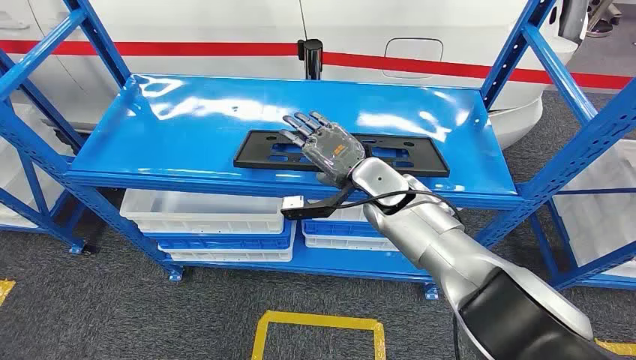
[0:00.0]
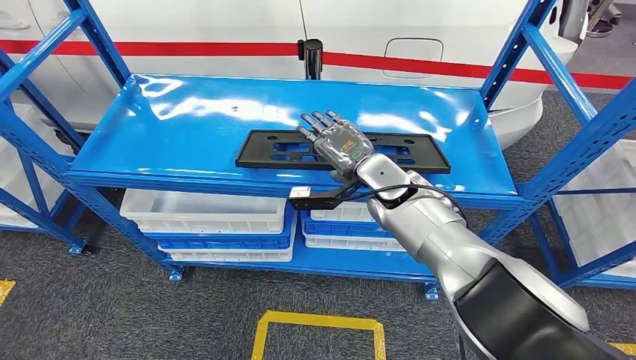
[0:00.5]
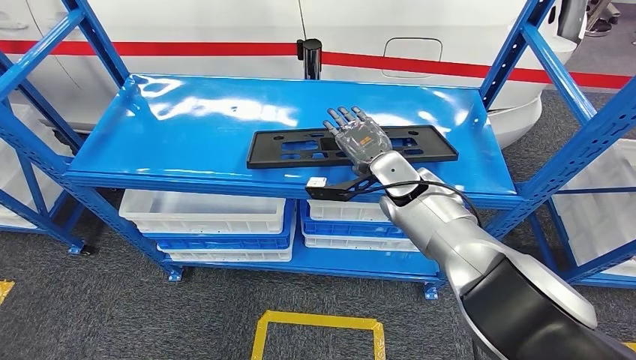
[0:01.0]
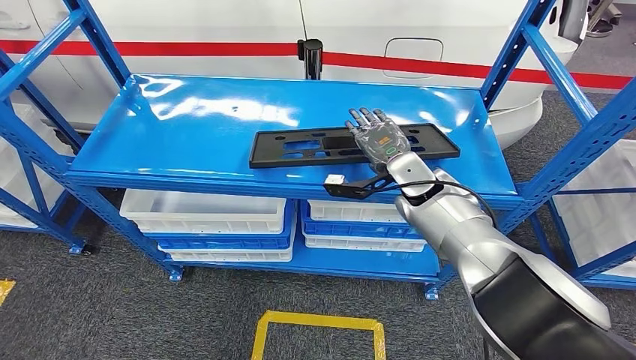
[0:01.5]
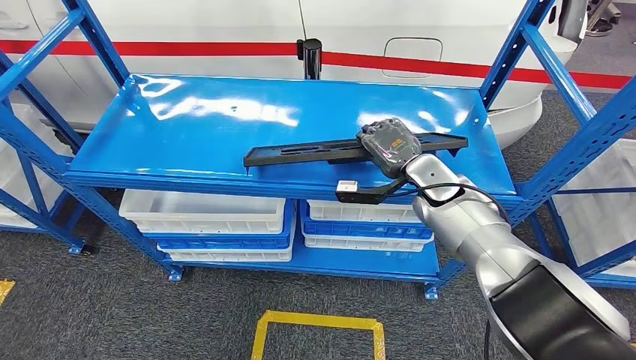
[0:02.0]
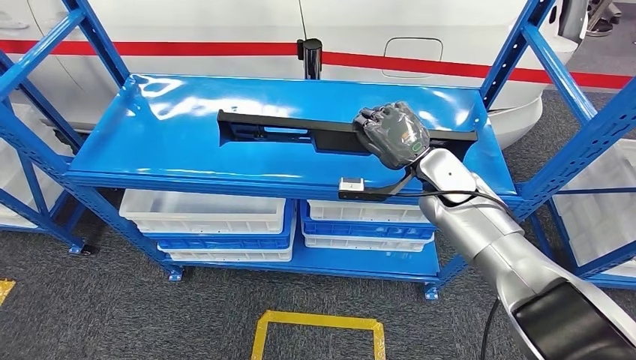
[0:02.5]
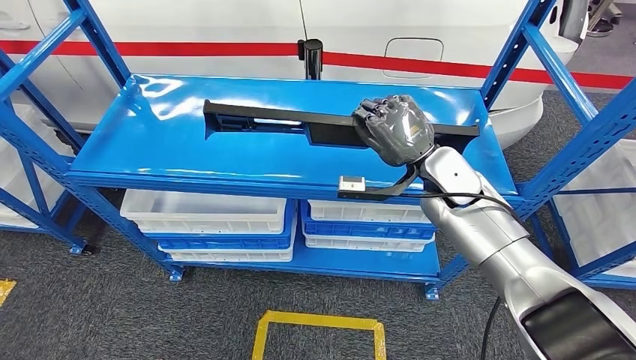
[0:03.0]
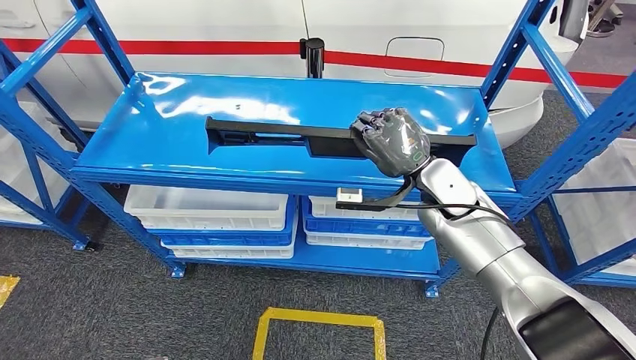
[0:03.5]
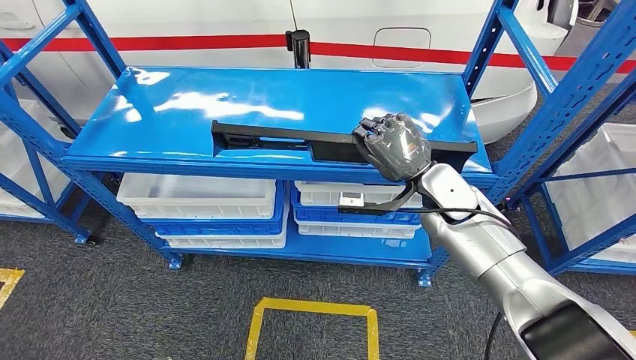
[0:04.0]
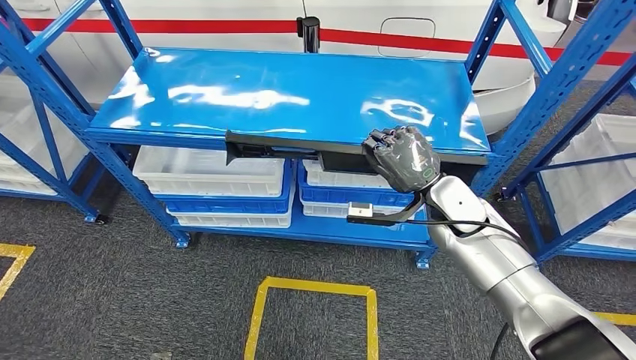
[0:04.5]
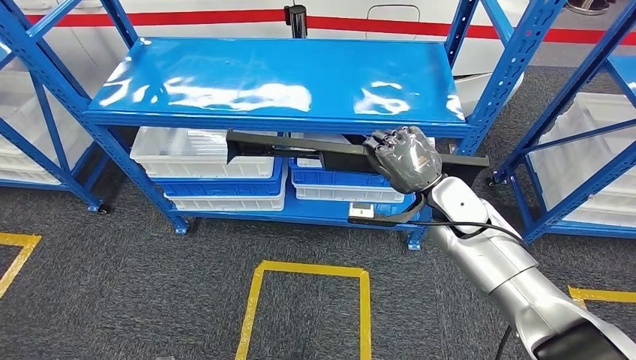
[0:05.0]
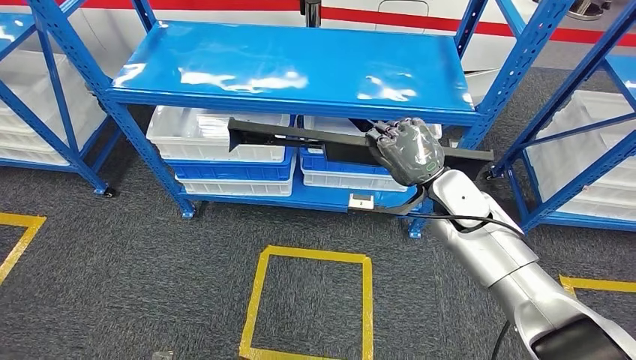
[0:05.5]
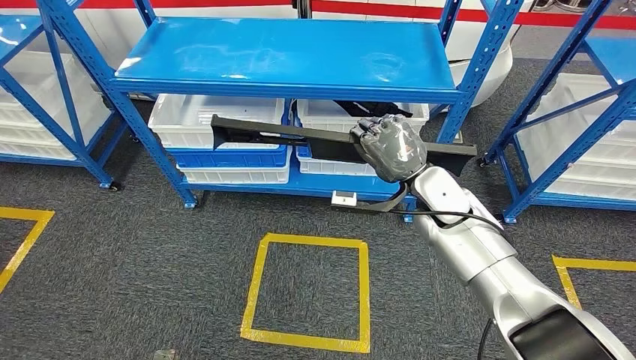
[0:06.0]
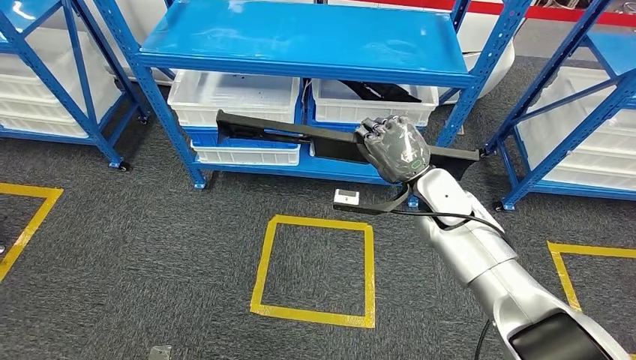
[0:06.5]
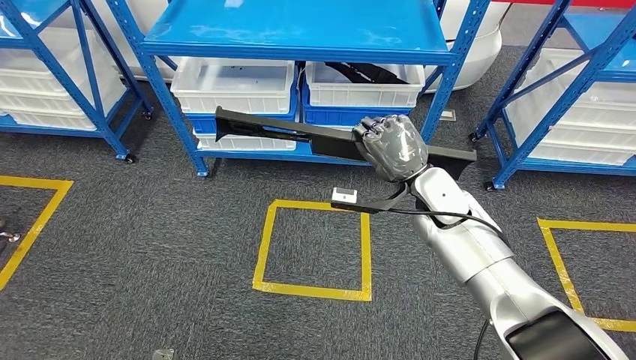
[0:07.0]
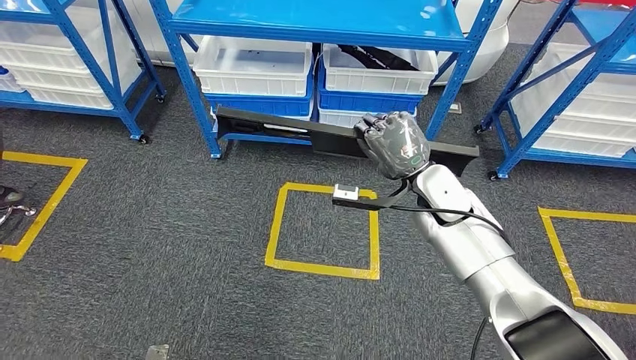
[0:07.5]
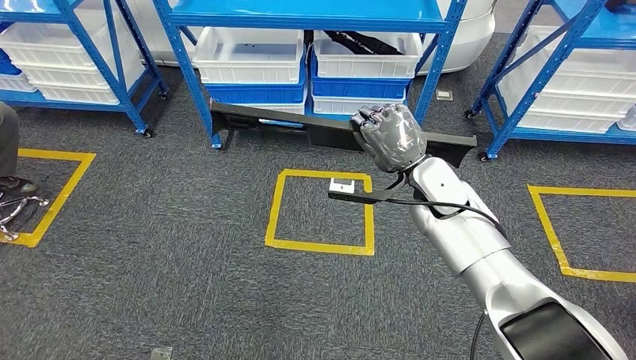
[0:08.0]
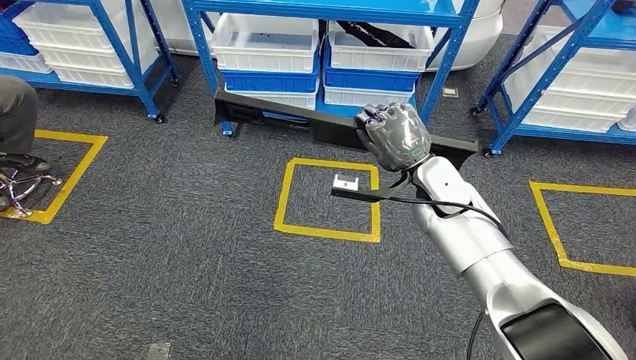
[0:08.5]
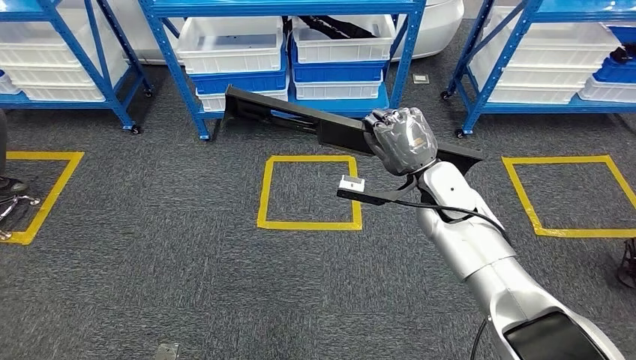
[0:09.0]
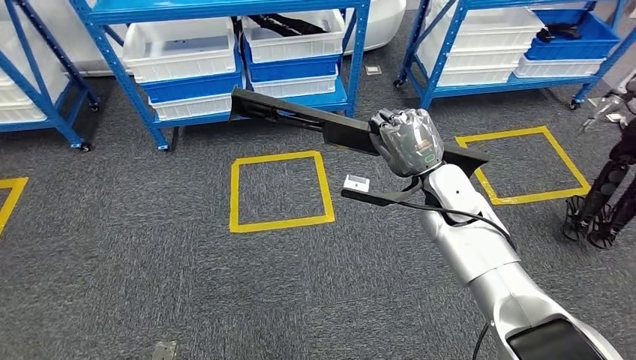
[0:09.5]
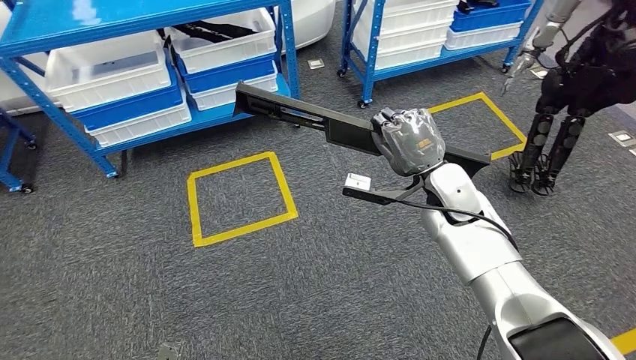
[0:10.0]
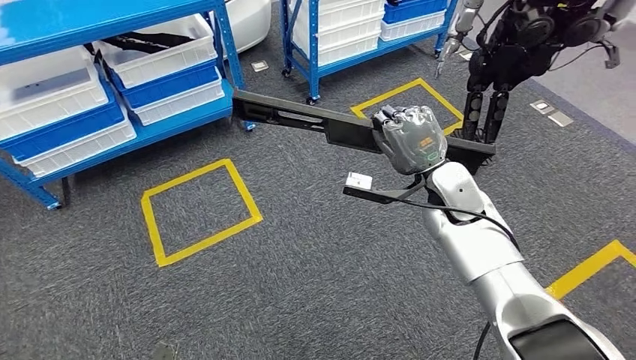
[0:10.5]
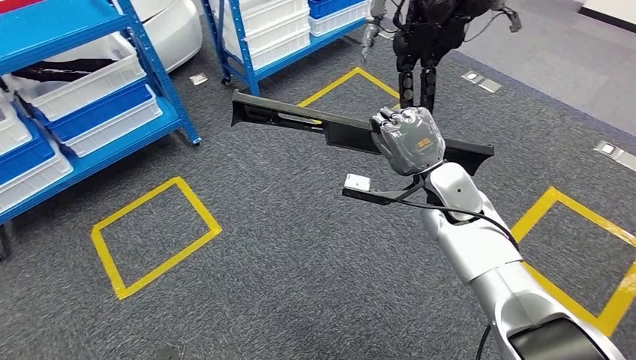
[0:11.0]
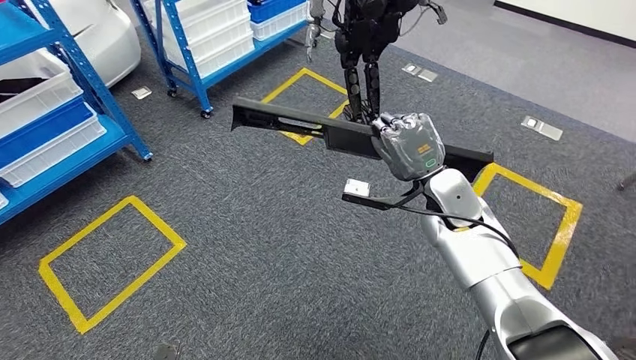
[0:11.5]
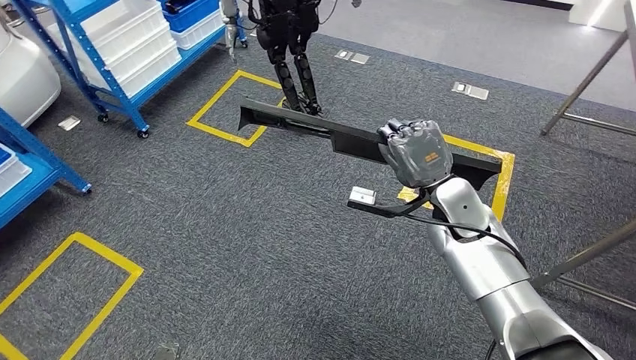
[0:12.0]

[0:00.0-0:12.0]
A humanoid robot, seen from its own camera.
Step, 0:00.0 to 0:03.0: Pick up the large material from the shelf.

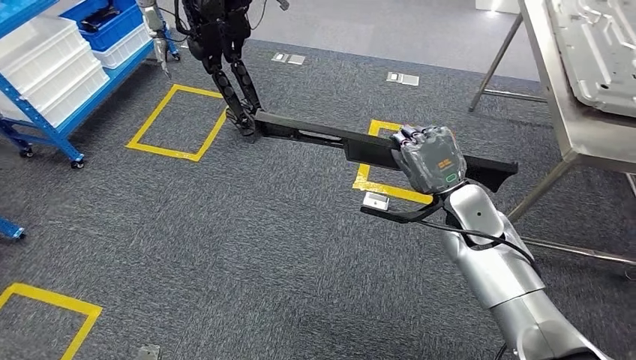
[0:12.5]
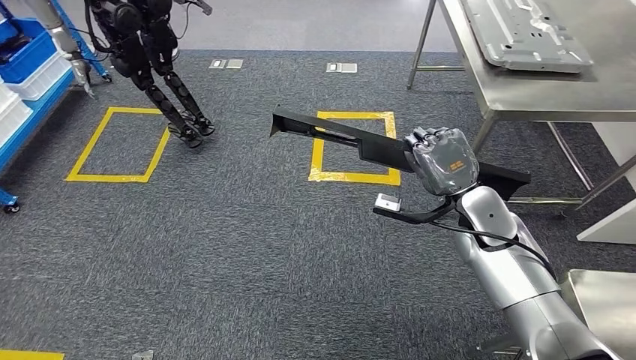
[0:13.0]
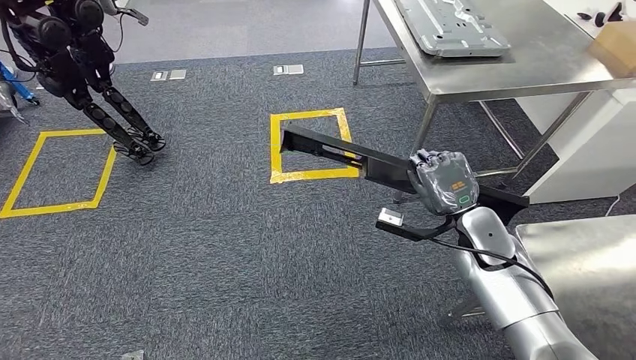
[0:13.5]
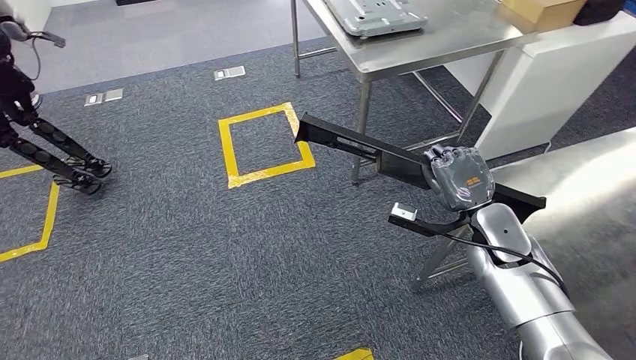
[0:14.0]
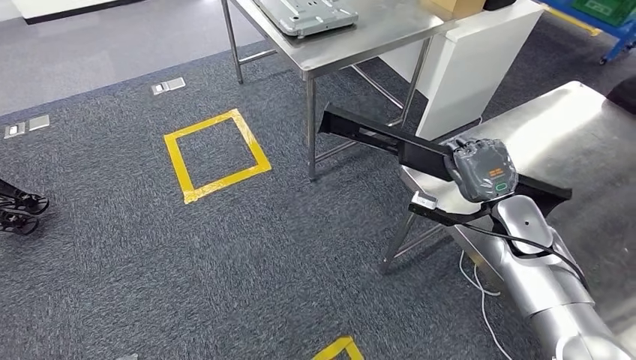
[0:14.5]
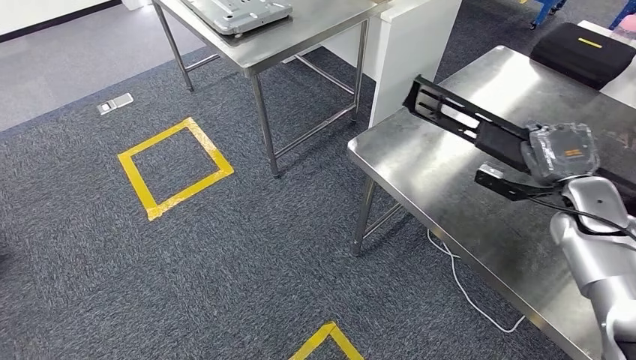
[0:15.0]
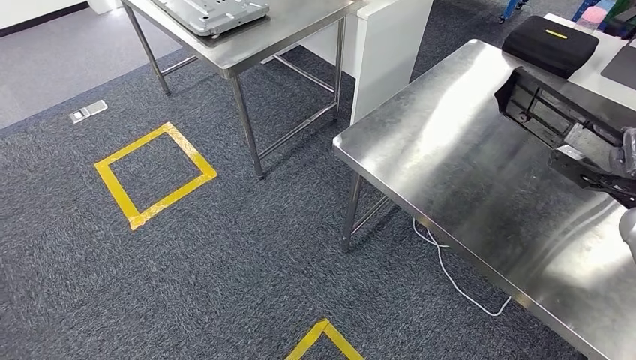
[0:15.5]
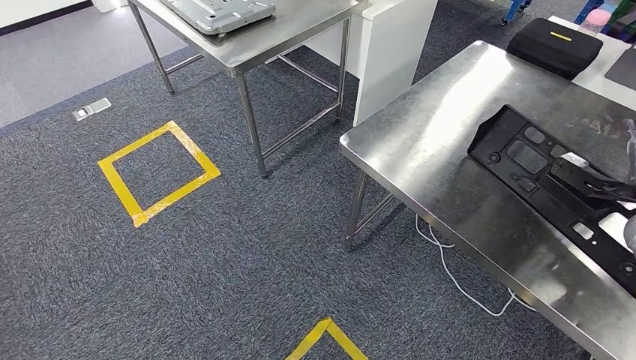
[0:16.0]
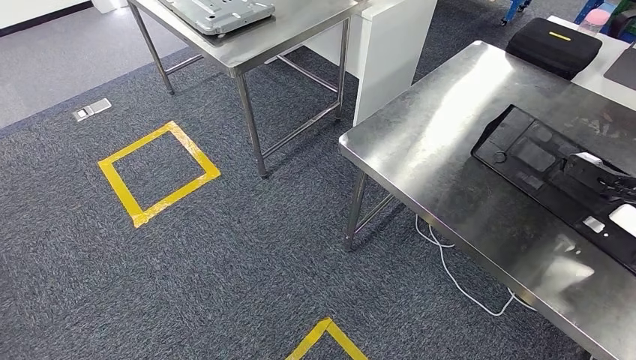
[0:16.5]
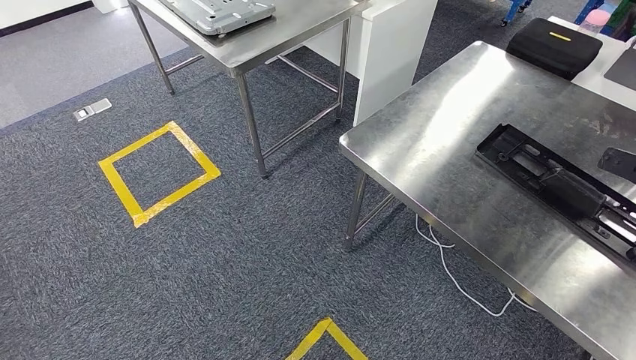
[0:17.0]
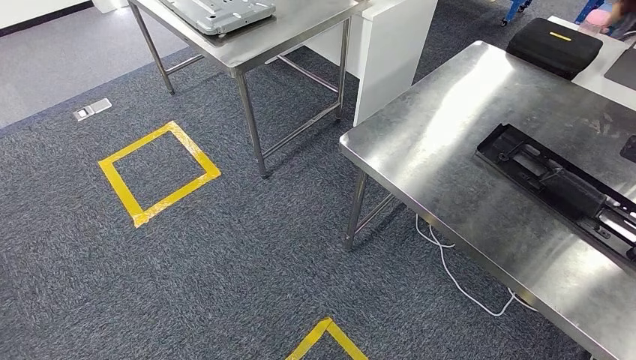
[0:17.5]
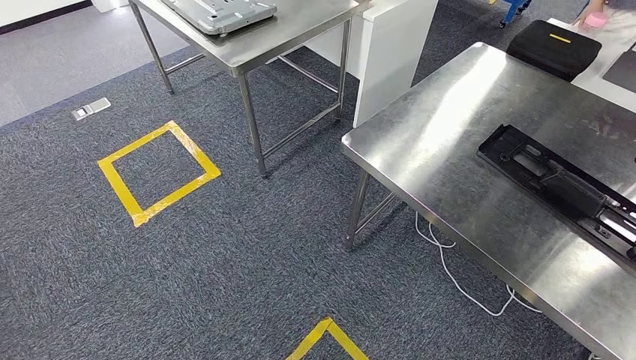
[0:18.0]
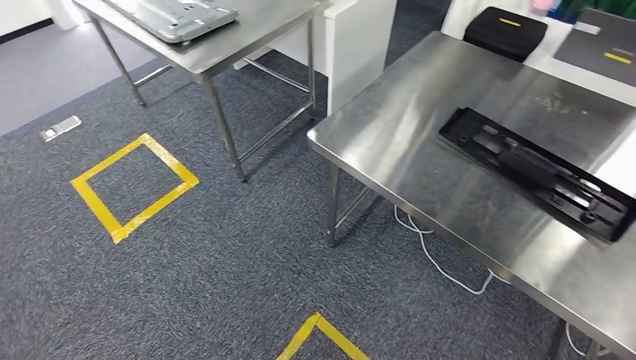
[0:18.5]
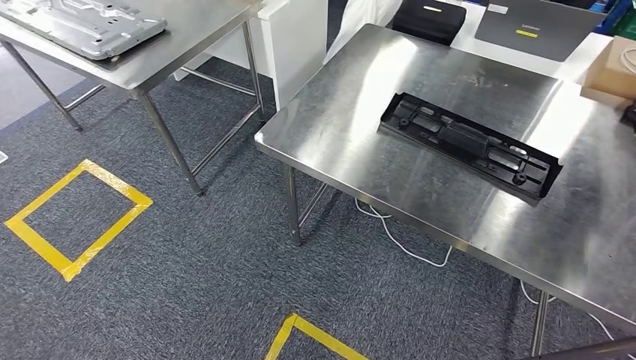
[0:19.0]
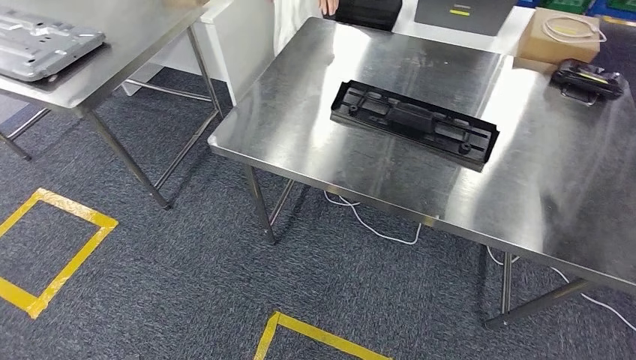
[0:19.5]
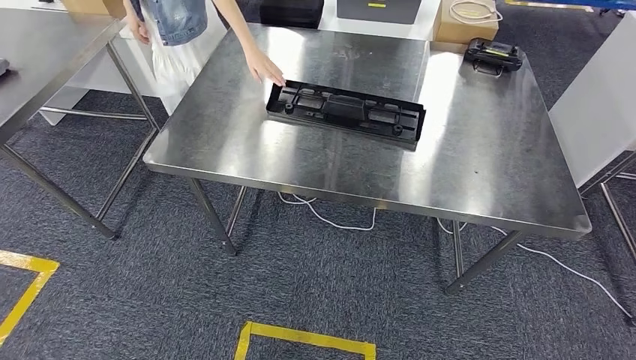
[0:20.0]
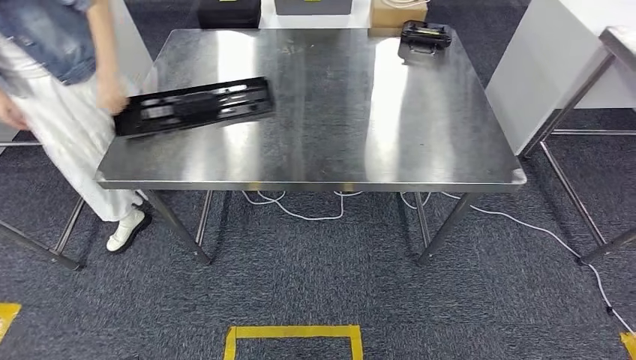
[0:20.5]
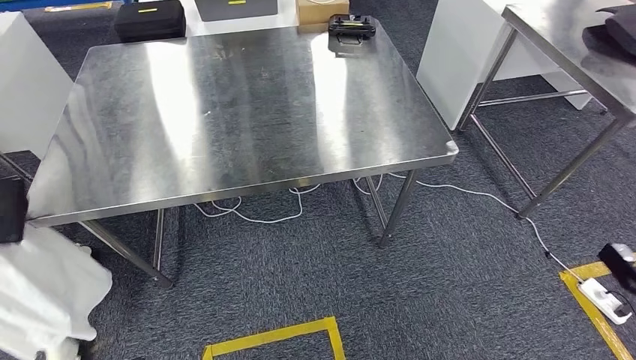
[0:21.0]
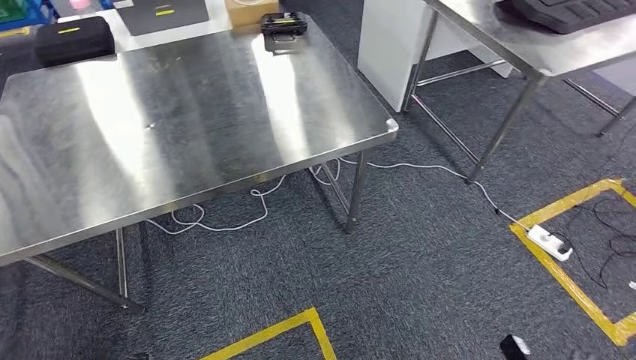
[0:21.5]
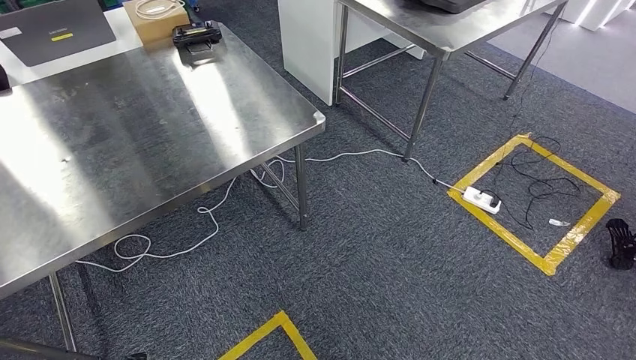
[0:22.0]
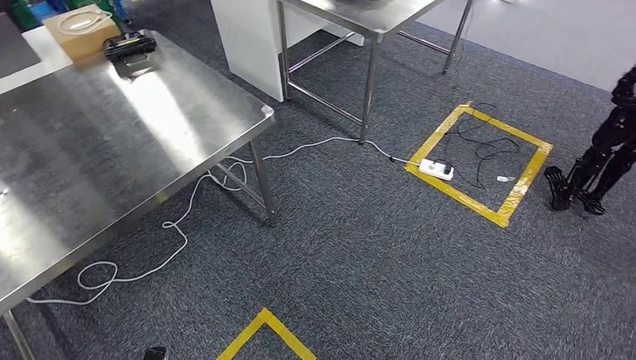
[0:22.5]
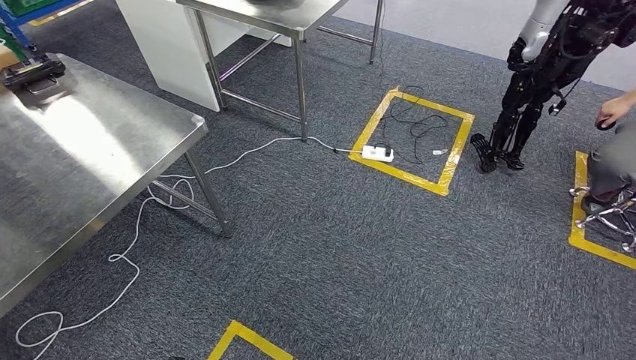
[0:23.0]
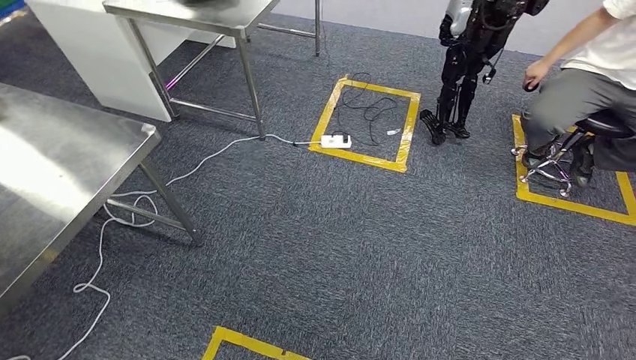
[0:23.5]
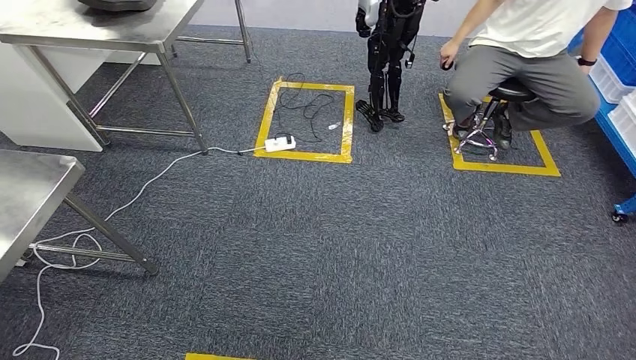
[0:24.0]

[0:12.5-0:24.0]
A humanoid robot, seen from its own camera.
Step, 0:12.5 to 0:14.5: Move the large material to the workbench.
Step, 0:15.0 to 0:16.0: Insert the large material into the corresponding slot on the workbench.
